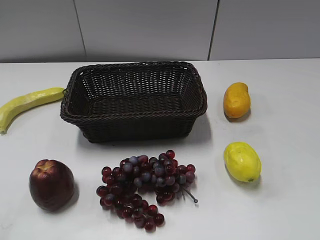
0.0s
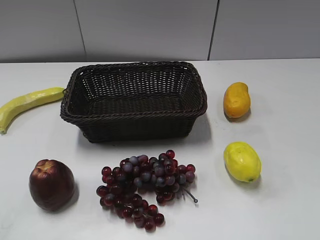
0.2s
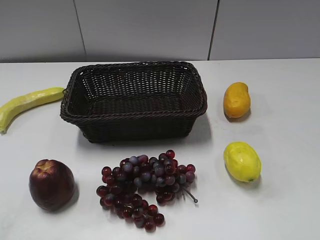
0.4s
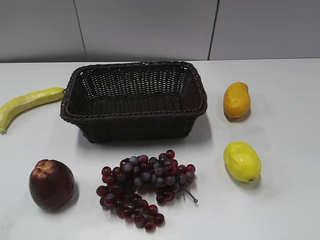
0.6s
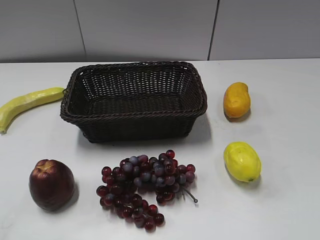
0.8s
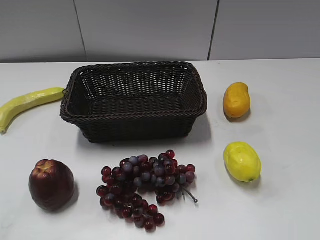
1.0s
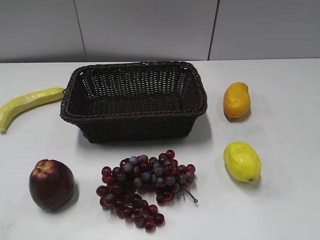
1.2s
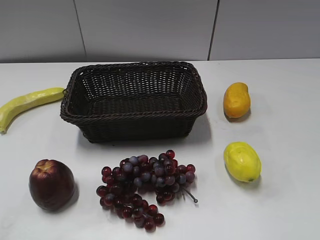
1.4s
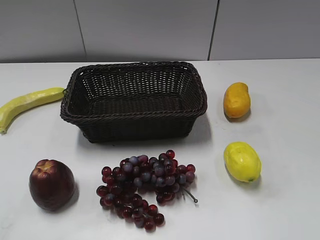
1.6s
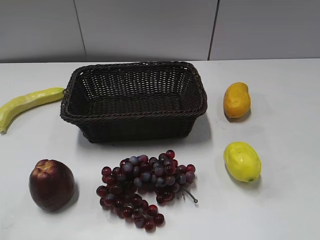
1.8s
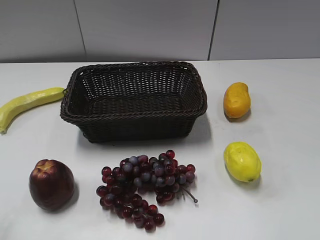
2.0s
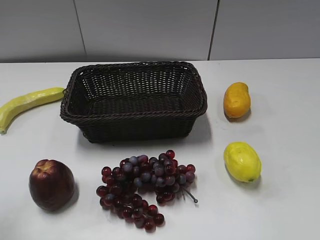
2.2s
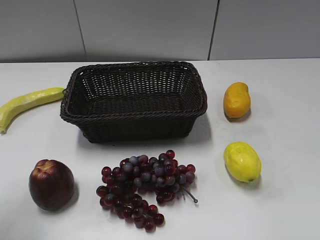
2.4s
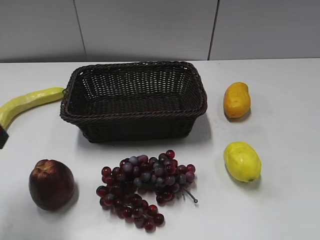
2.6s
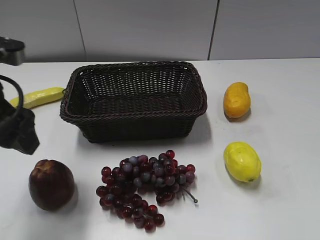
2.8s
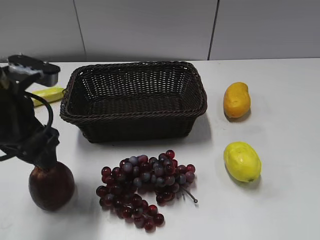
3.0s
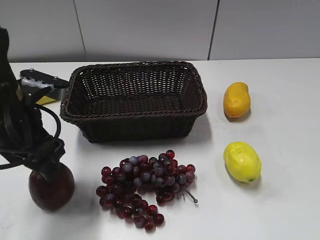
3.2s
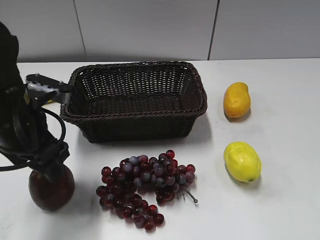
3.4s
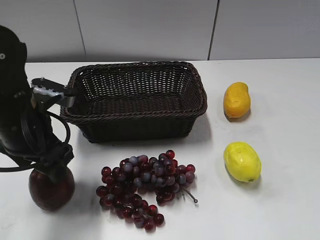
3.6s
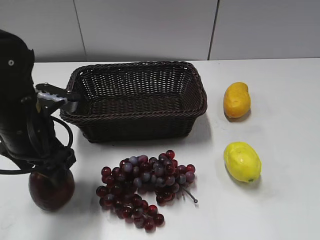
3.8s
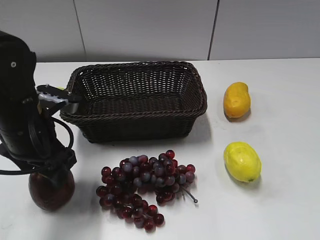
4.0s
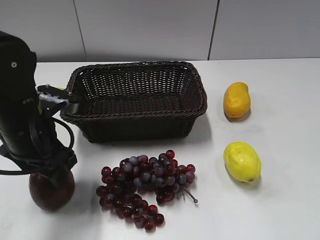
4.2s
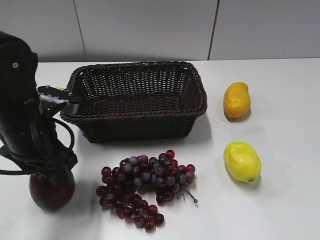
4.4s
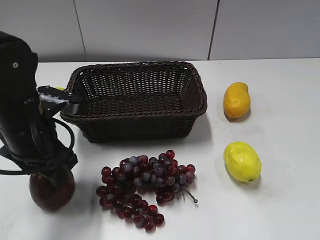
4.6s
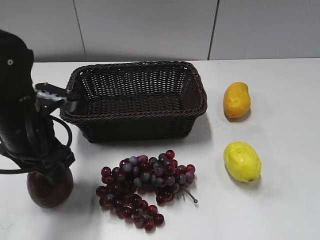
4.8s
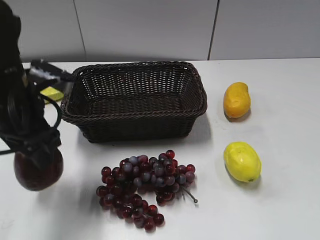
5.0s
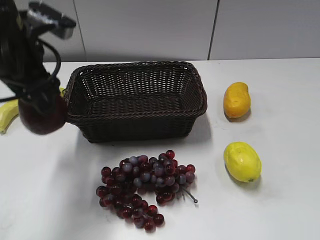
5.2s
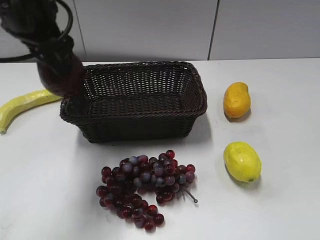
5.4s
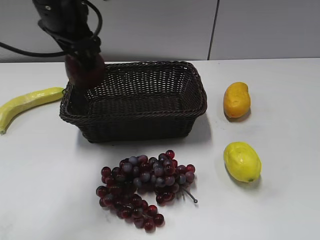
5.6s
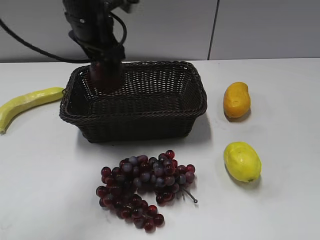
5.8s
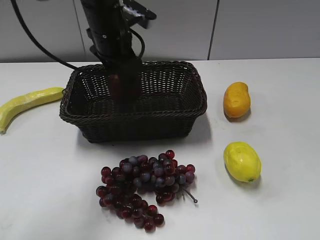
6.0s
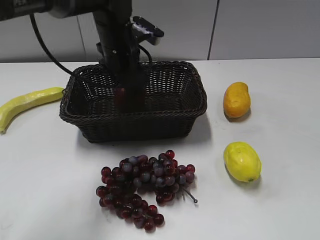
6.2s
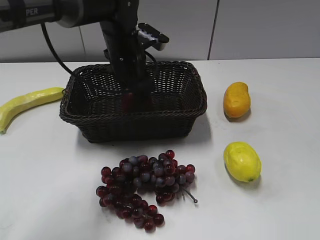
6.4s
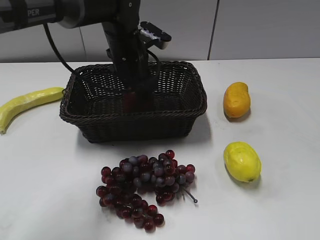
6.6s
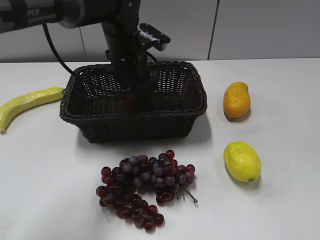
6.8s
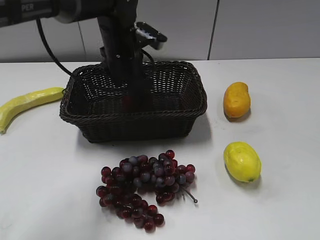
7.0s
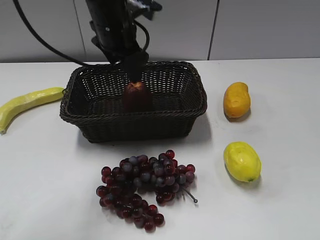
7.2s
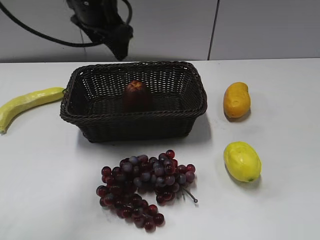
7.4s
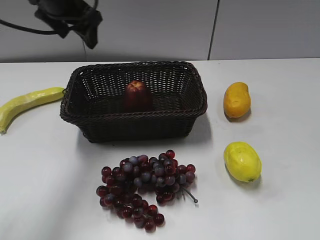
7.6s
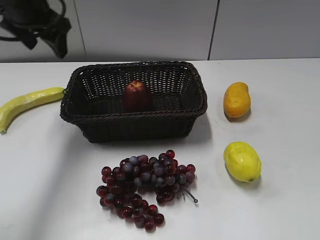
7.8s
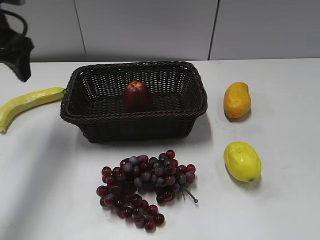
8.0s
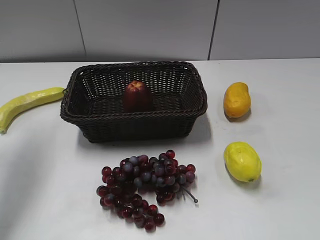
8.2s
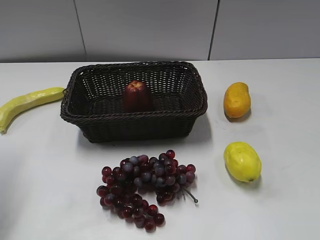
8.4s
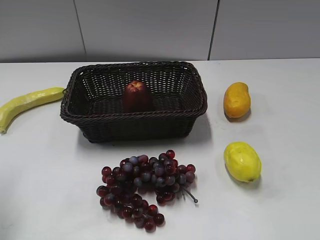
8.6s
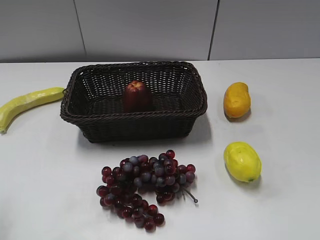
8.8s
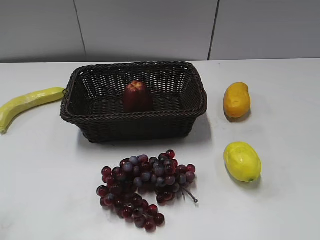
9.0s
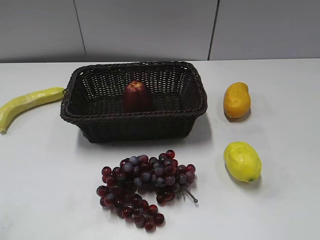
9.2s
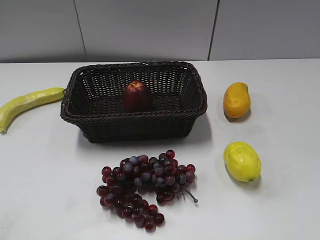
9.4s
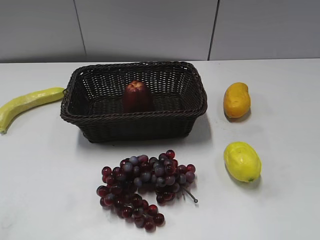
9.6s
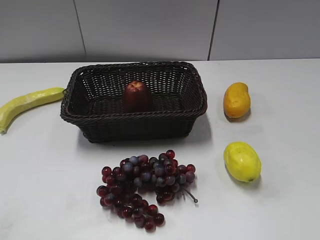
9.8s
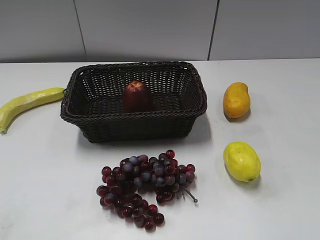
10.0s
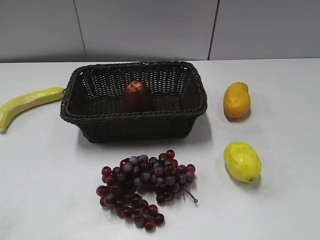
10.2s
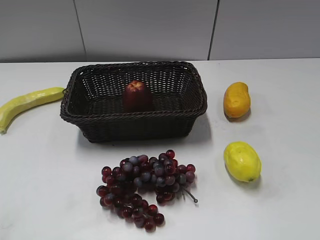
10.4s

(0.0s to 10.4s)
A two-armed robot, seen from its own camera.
Step, 2.6s - 4.6s: Grasp the apple with left gripper.
Step, 4.8s - 6.6s: Place the apple in the basket with left gripper.
1.4s - 3.0s: The left gripper heads forward and to the right, covering approximately 25 cm.
3.0s - 4.4s: The left gripper moves downward, approximately 5 cm, and closes up.
4.4s - 6.0s: The left gripper shifts roughly 20 cm forward, to the right and upward.
6.0s - 7.4s: The left gripper opens.
7.4s - 9.0s: The left gripper goes about 35 cm backward and to the left.

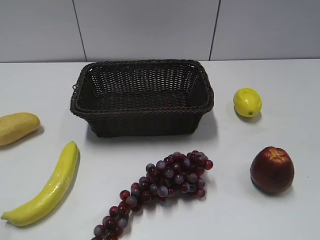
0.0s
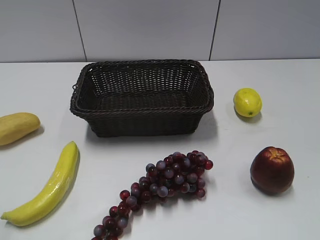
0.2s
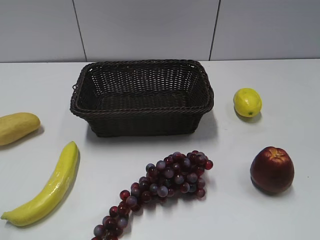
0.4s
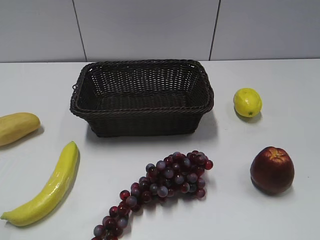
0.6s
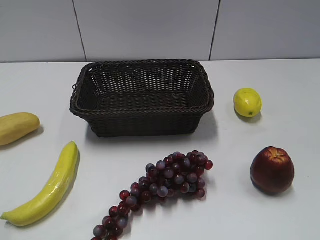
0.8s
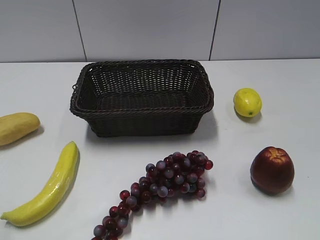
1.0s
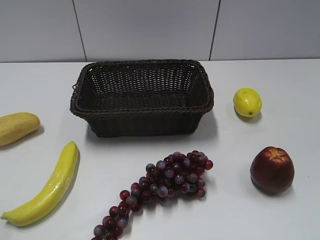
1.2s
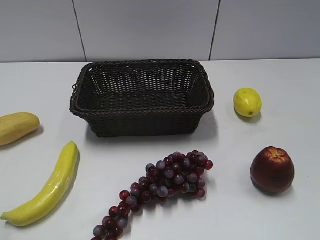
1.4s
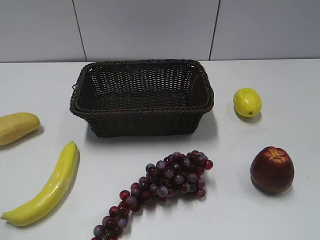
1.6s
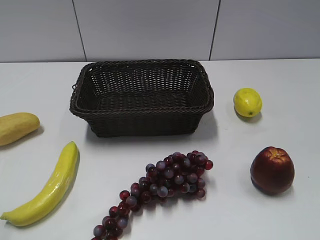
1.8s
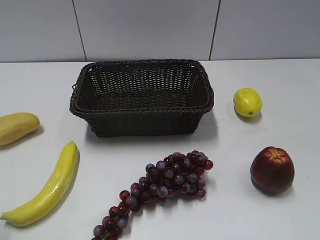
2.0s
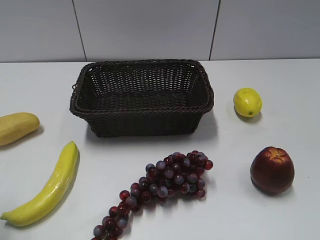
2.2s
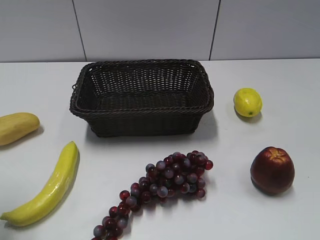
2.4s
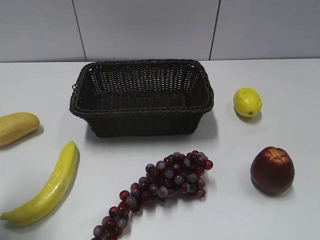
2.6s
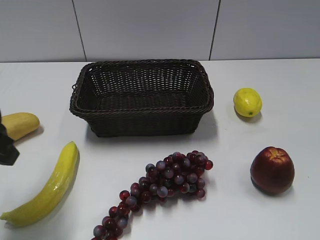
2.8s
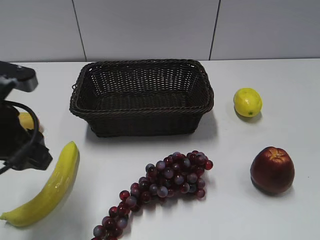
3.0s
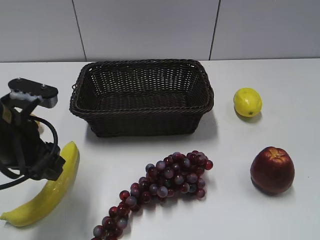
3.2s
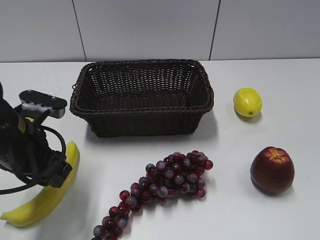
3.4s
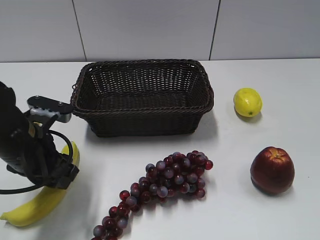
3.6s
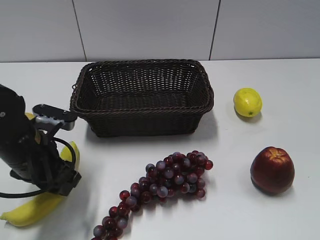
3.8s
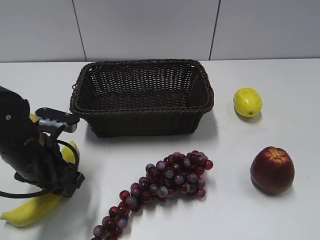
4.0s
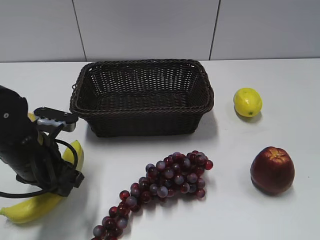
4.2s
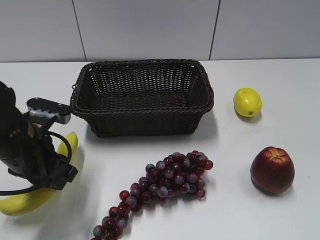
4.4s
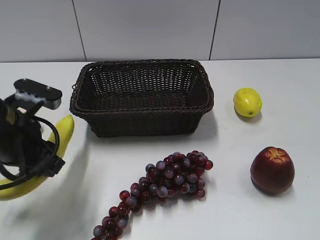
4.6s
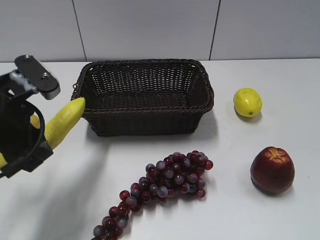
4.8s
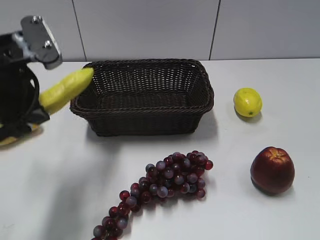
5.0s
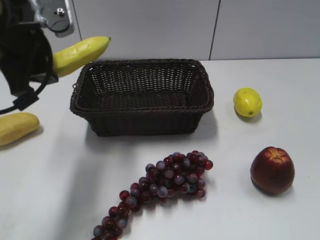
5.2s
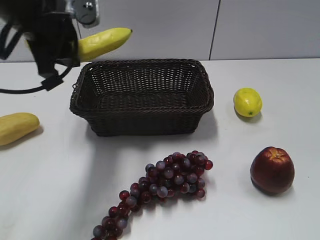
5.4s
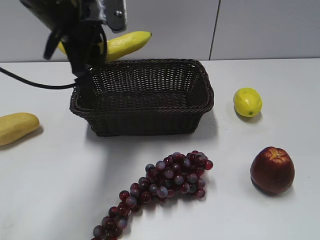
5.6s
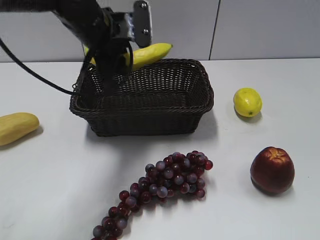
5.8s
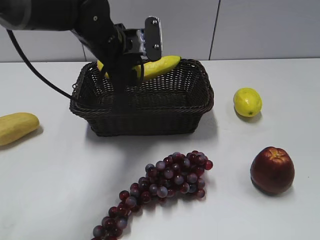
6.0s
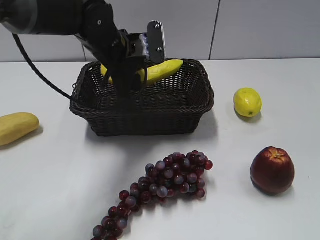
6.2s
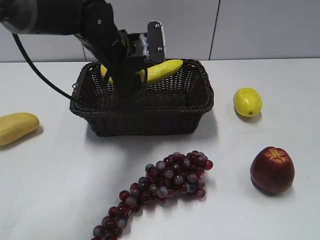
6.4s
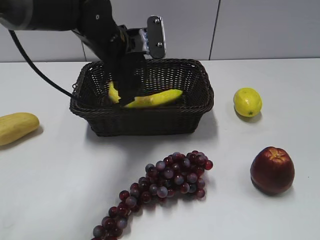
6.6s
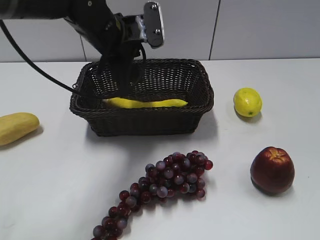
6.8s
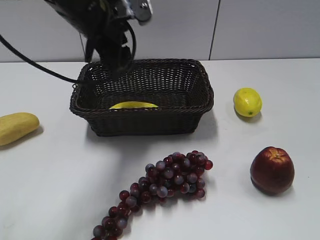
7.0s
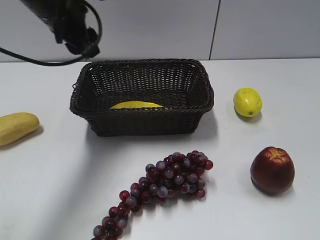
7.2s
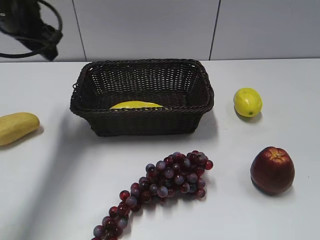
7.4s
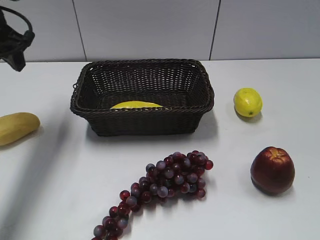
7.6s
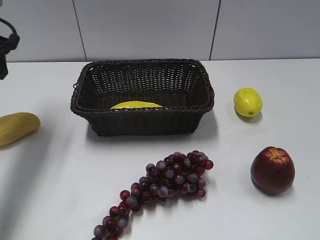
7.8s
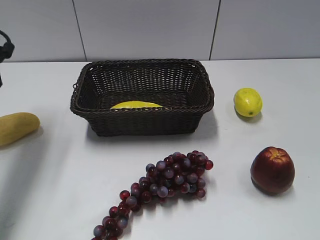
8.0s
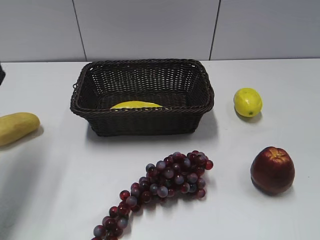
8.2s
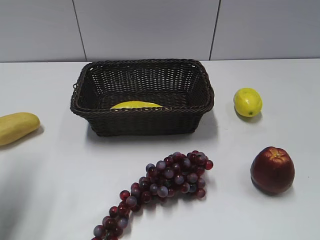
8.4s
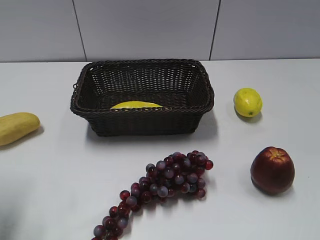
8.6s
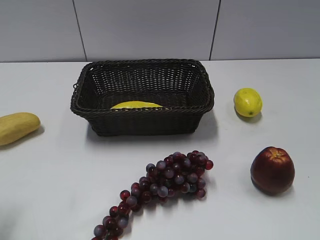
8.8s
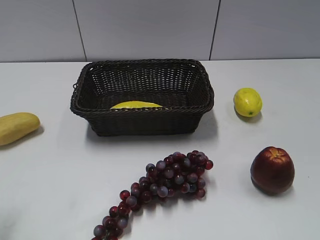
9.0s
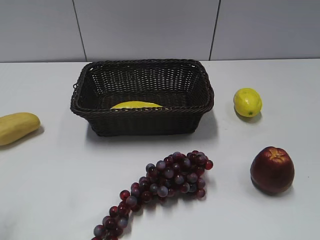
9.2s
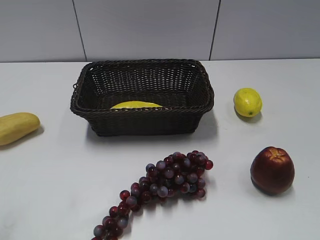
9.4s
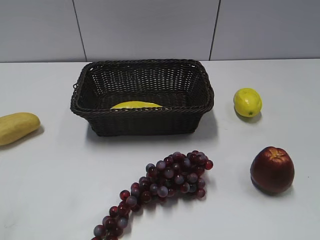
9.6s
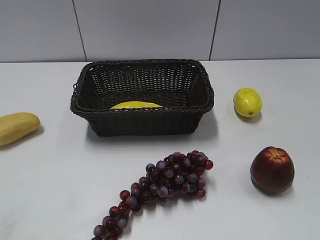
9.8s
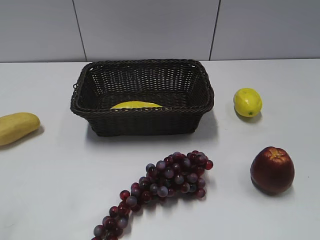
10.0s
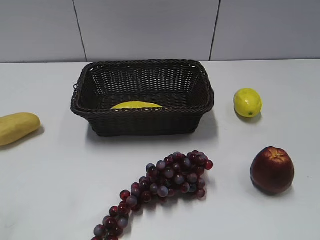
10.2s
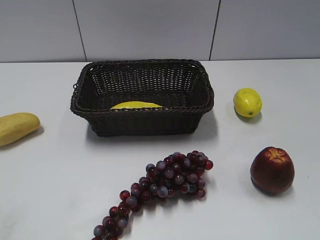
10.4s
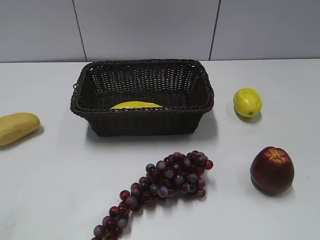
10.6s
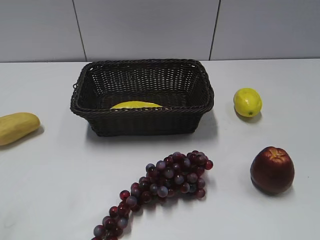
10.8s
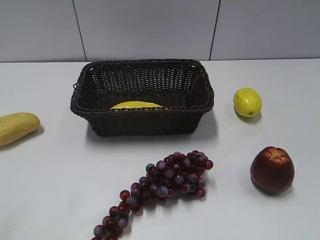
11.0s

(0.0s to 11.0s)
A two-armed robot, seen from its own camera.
Step, 2.8s - 4.0s: Grasp the banana with left gripper.
Step, 4.4s - 6.6s: Place the banana in the basket with left gripper.
1.6s - 3.2s: The left gripper moves forward, to the right and downward, roughly 25 cm, and opens its fingers.
3.2s - 4.8s: The left gripper travels downward and back again, approximately 5 cm each way, and closes up.
4.8s - 6.2s: The left gripper goes approximately 20 cm forward and to the right.
6.2s - 7.8s: The left gripper shifts some 20 cm to the left, and opens its fingers.
7.8s - 9.4s: The left gripper travels backward by roughly 30 cm.

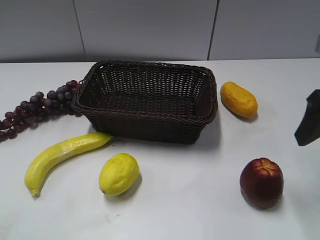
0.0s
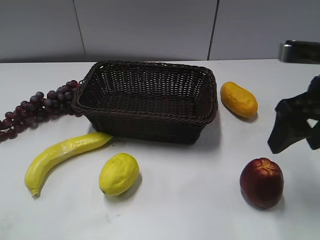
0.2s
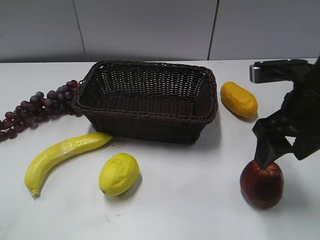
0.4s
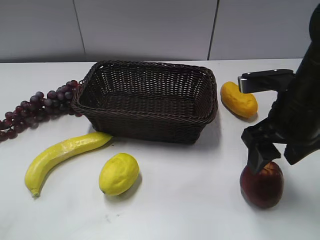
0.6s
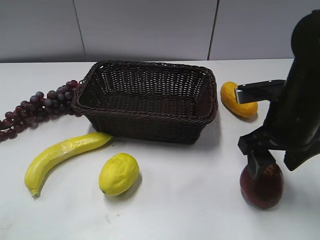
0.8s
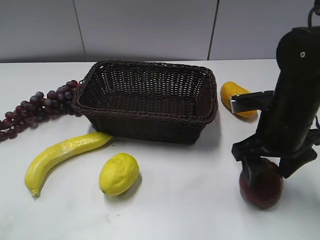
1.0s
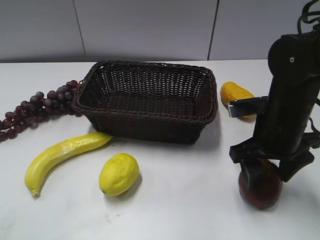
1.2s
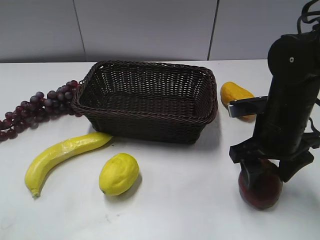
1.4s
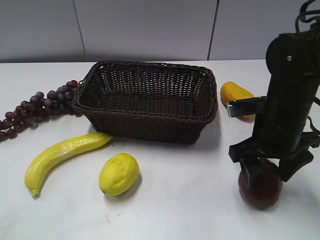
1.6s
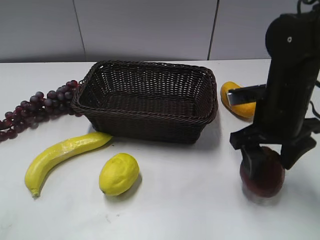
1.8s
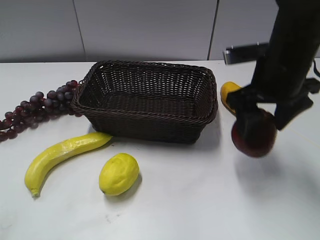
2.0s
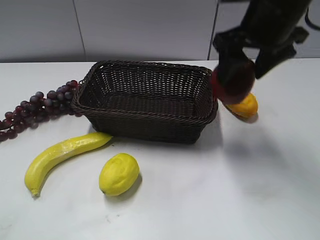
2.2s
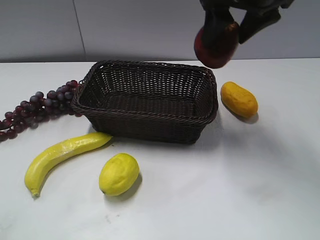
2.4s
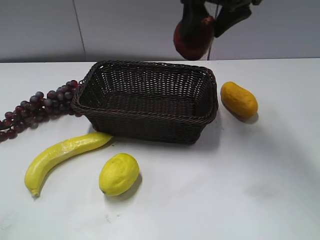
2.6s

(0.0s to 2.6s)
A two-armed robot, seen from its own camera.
Step, 0.0s - 1.0s: Grasp the apple with right gripper.
0.0s - 1.2s: The right gripper heads downward and to the left, covering some 15 cm.
1.2s - 2.6s: The right gripper heads upward, forward and to the left, covering some 25 cm.
